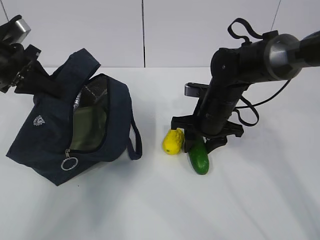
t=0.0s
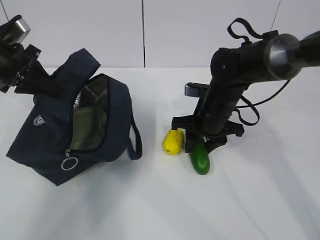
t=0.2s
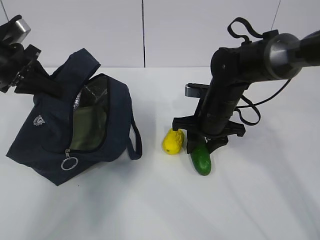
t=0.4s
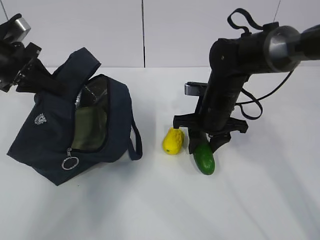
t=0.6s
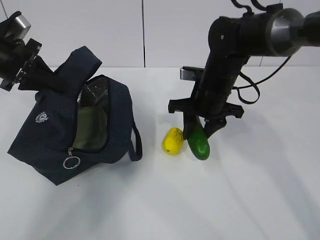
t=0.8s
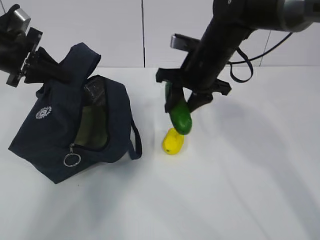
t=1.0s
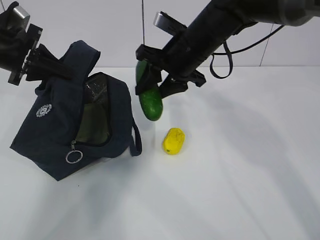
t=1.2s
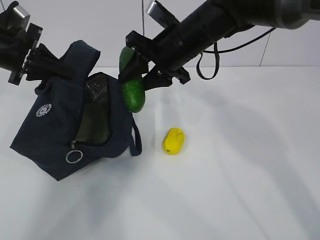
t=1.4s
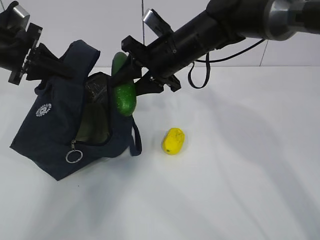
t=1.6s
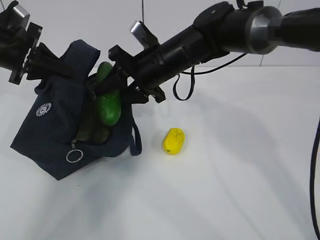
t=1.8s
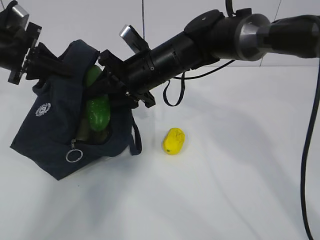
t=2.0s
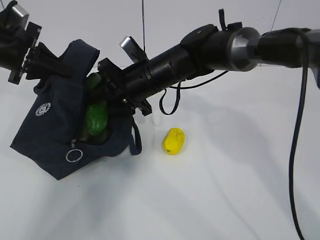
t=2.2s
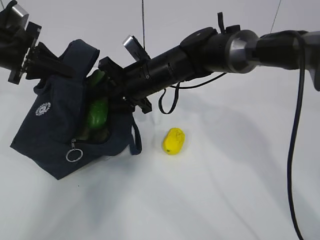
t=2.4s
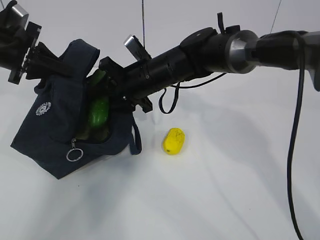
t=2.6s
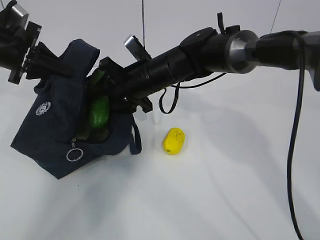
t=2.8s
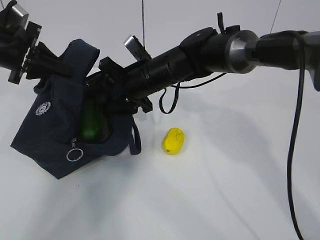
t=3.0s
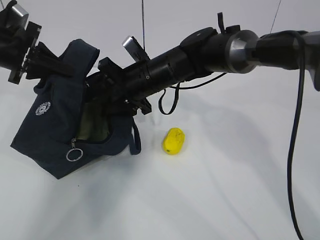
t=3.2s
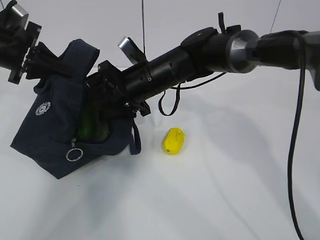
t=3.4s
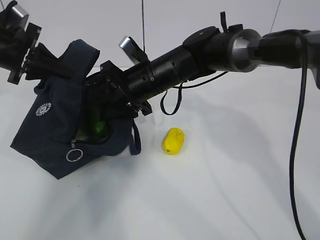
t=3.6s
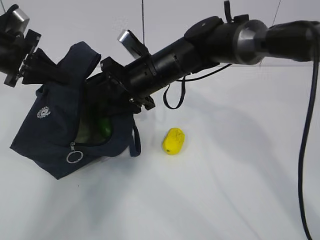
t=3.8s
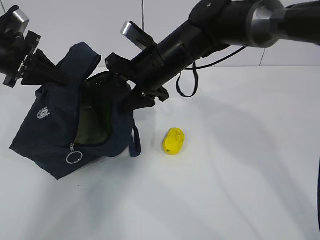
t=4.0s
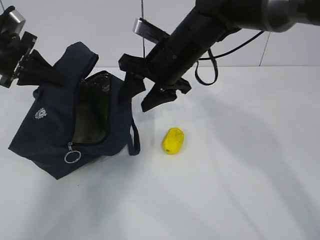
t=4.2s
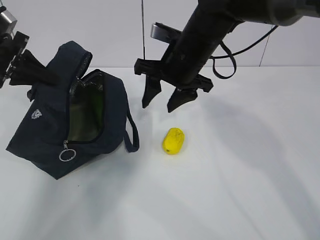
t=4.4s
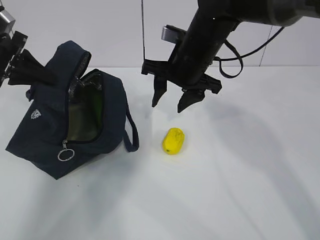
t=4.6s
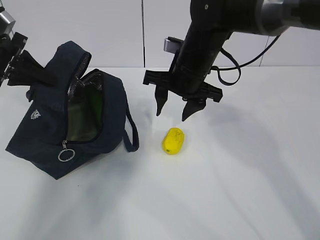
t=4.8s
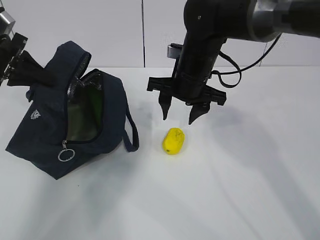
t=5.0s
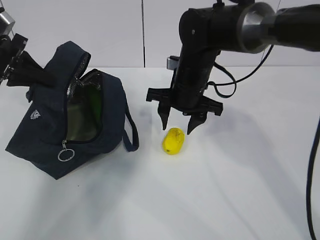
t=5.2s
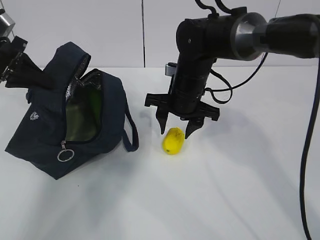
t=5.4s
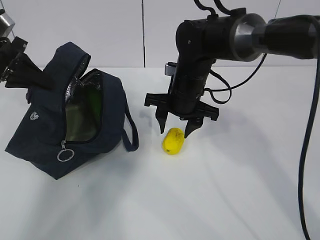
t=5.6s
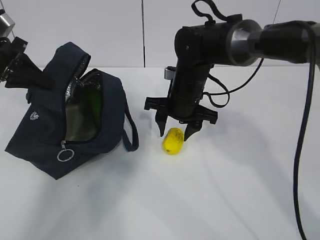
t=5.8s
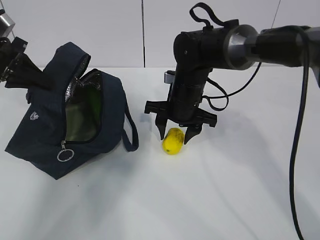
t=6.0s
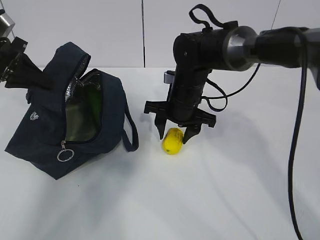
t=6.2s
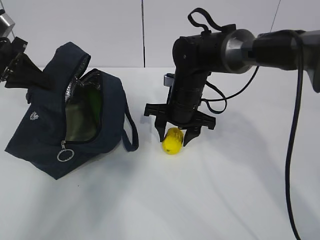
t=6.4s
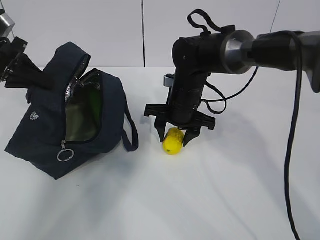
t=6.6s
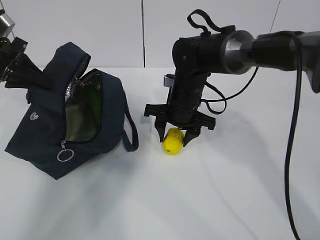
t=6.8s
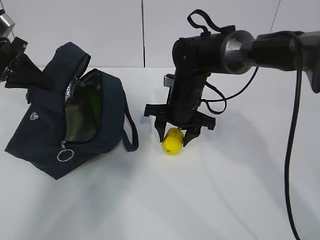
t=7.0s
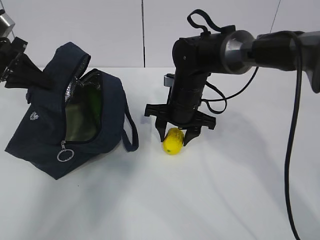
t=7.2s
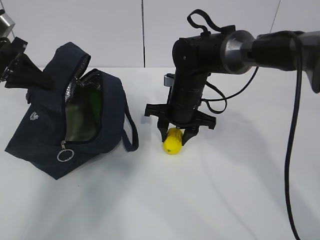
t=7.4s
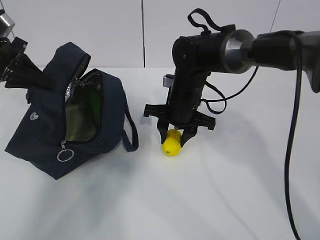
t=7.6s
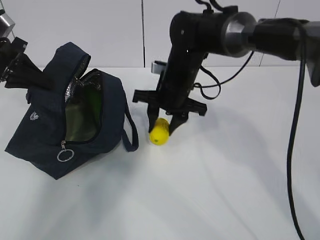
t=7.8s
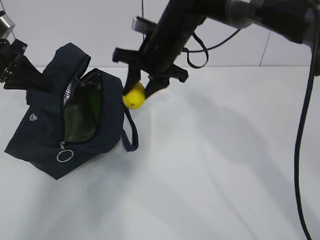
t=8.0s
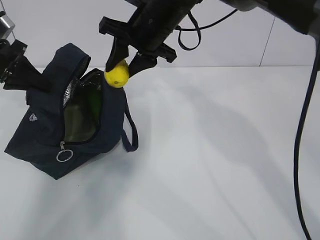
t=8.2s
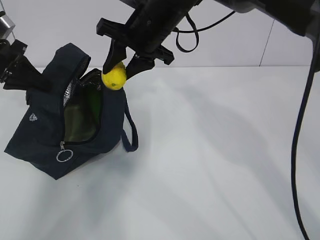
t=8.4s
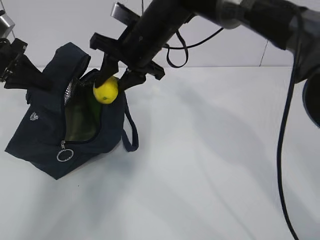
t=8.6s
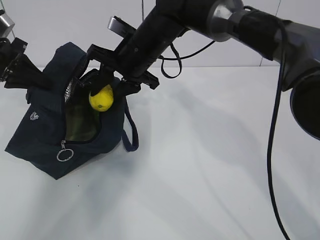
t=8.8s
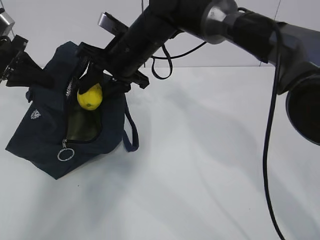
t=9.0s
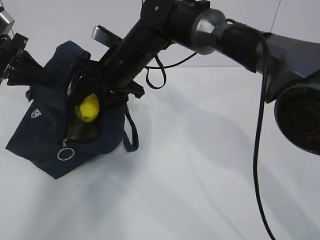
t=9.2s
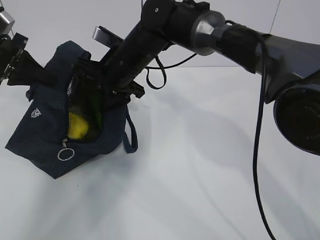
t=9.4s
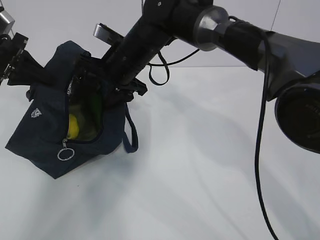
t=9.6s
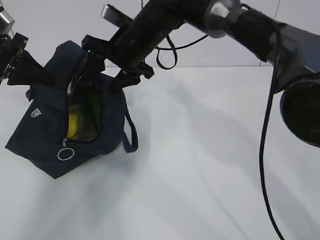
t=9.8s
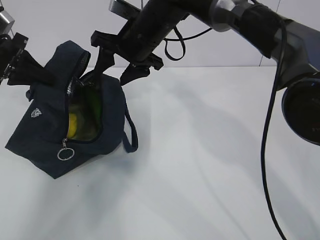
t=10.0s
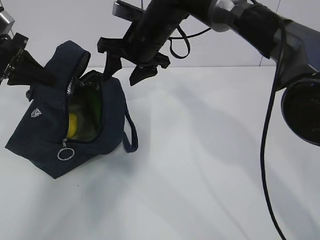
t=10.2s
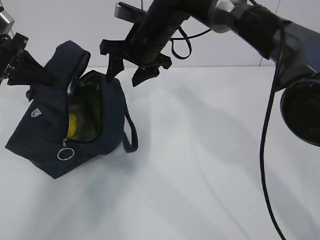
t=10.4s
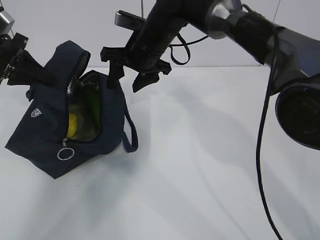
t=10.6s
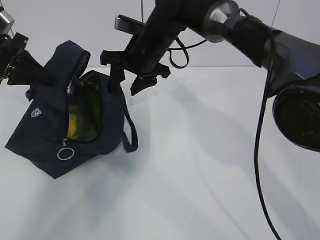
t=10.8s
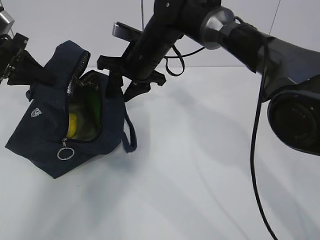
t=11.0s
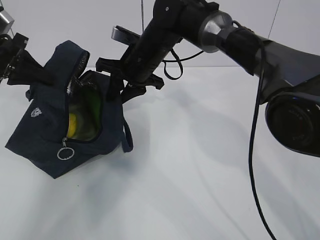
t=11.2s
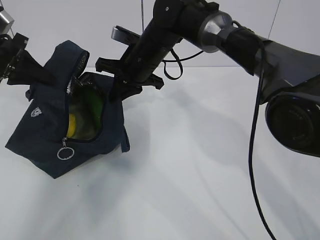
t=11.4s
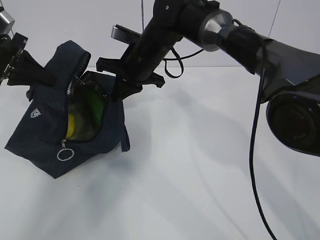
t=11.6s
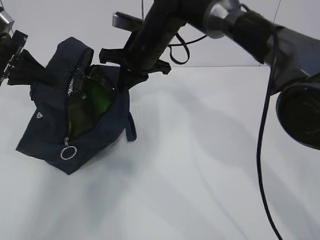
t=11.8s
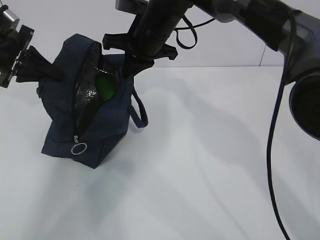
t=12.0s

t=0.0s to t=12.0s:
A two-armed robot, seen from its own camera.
Step, t=0.0s to t=2.2s: Grab the lemon with your right hand.
Step, t=4.2s to t=5.6s: Grab the lunch bag with your right hand.
Step, t=5.8s to t=10.0s: Move the lunch bag to the right.
t=0.0s to t=1.6s: The right gripper moves upward and to the left, approximately 15 cm.
t=1.6s to t=3.0s: The right gripper heads downward, covering roughly 5 cm.
t=3.0s to t=4.4s: The right gripper shifts about 10 cm upward and to the right.
t=4.4s to t=6.0s: The right gripper travels downward by approximately 10 cm.
t=6.0s to t=7.6s: Both grippers stay about where they are.
t=7.6s to t=9.0s: The right gripper travels upward and to the left by about 15 cm.
t=9.0s to t=10.4s: The grippers make only small movements.
t=10.4s to t=12.0s: The right gripper closes its fingers.

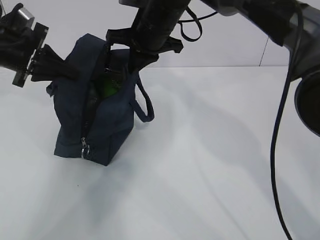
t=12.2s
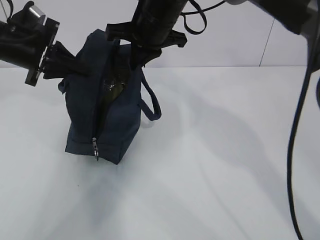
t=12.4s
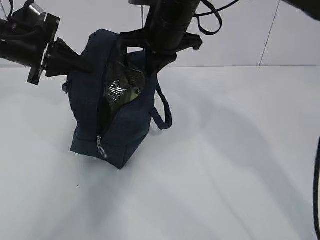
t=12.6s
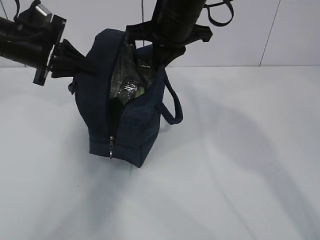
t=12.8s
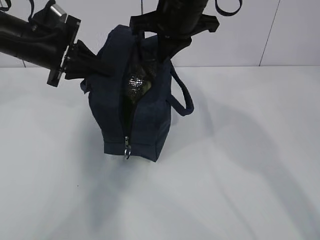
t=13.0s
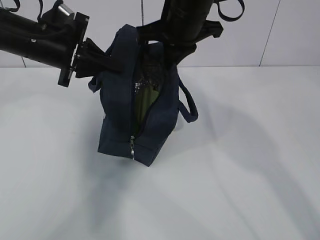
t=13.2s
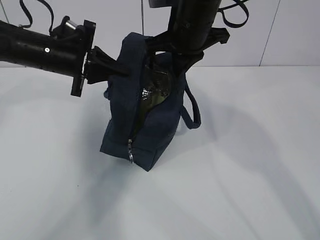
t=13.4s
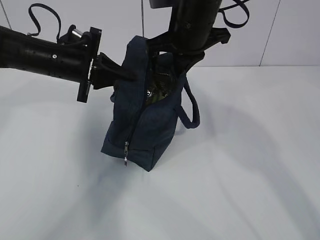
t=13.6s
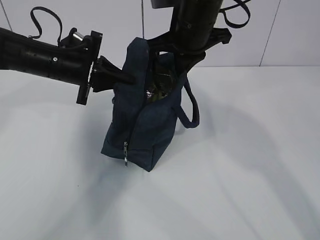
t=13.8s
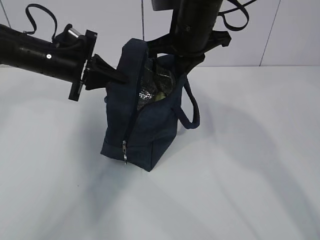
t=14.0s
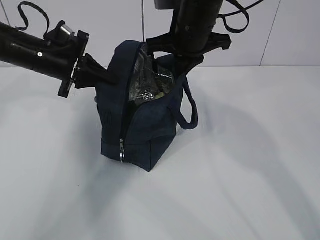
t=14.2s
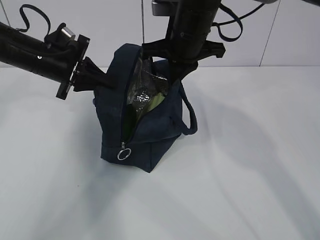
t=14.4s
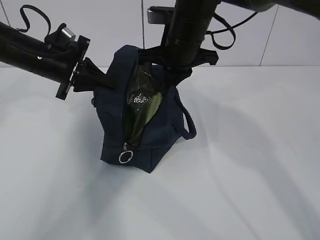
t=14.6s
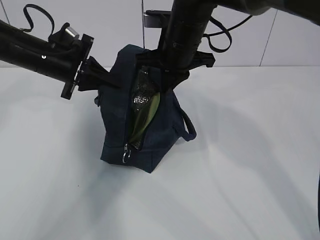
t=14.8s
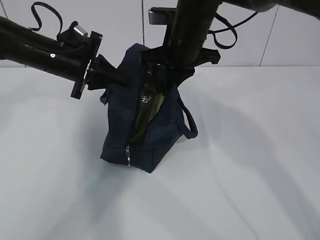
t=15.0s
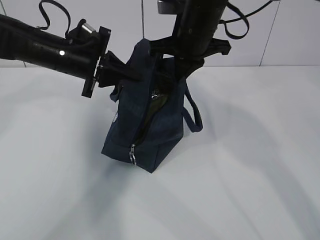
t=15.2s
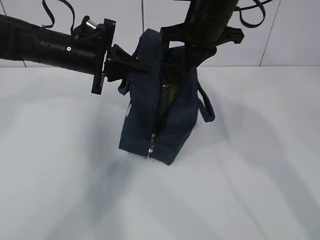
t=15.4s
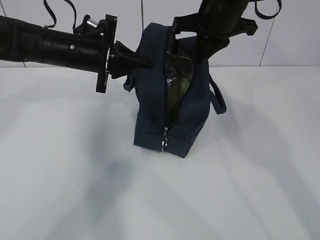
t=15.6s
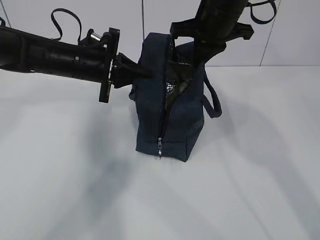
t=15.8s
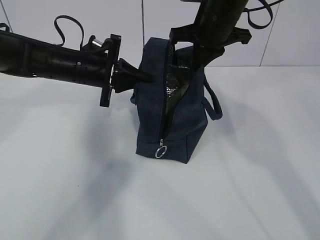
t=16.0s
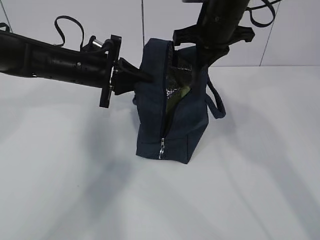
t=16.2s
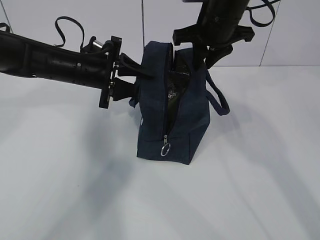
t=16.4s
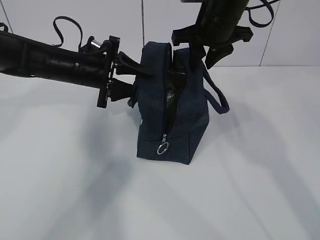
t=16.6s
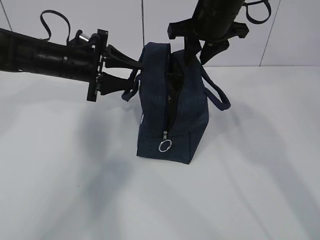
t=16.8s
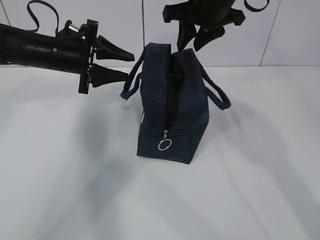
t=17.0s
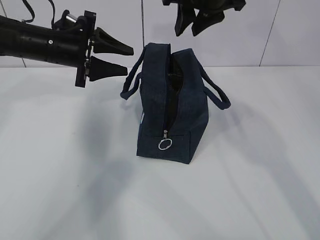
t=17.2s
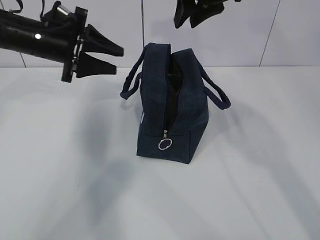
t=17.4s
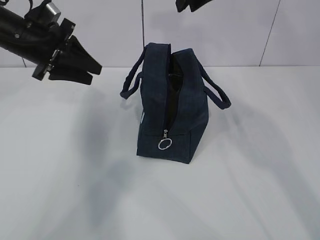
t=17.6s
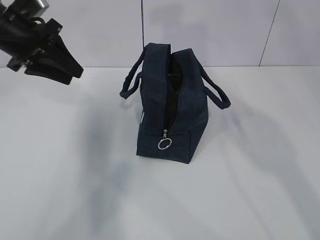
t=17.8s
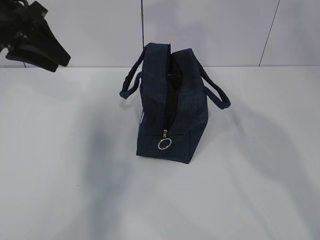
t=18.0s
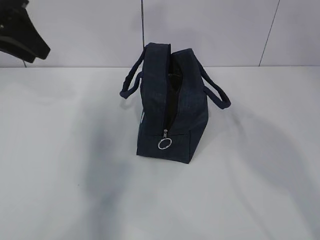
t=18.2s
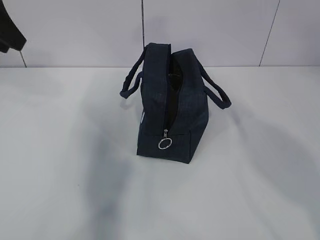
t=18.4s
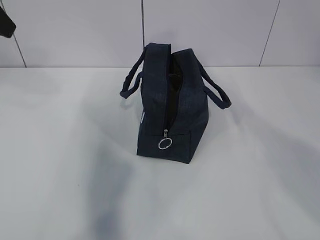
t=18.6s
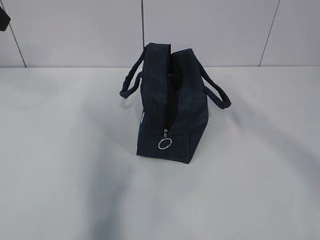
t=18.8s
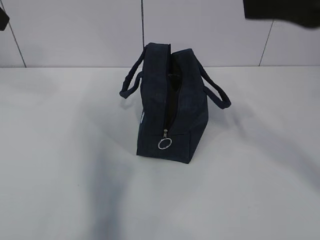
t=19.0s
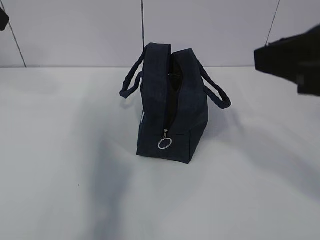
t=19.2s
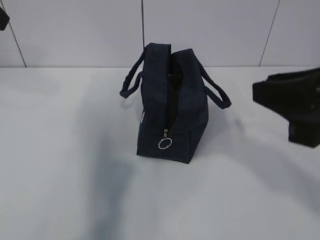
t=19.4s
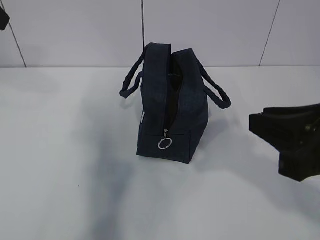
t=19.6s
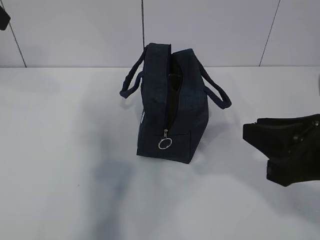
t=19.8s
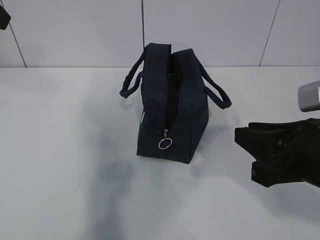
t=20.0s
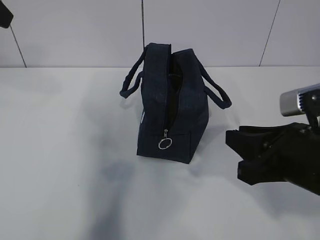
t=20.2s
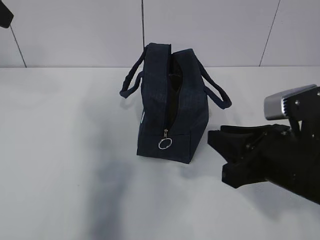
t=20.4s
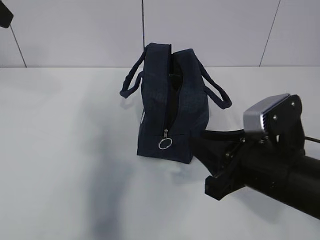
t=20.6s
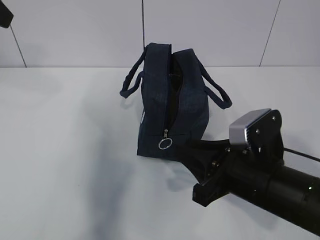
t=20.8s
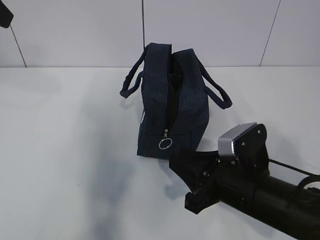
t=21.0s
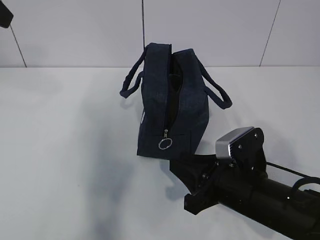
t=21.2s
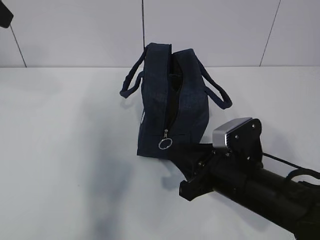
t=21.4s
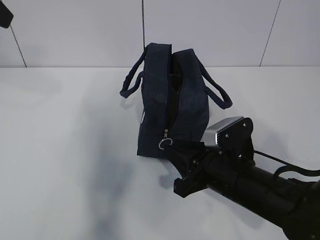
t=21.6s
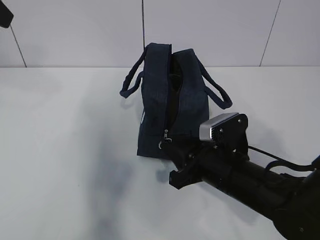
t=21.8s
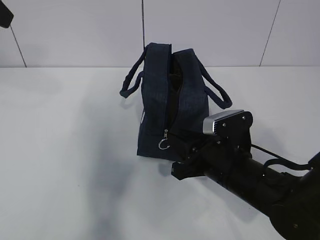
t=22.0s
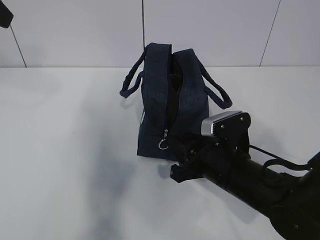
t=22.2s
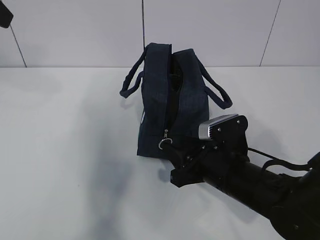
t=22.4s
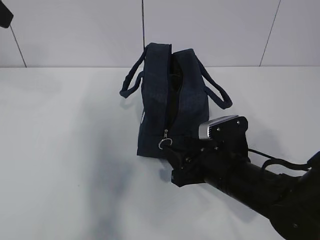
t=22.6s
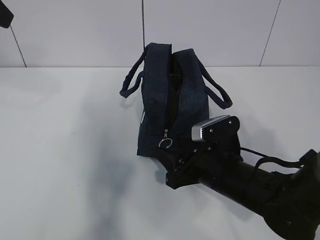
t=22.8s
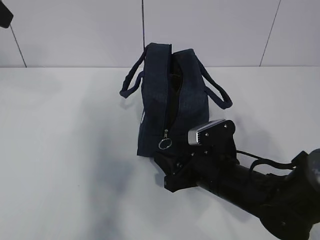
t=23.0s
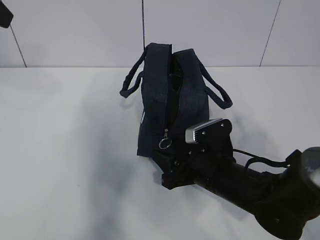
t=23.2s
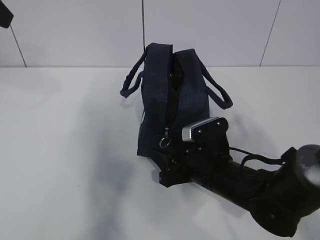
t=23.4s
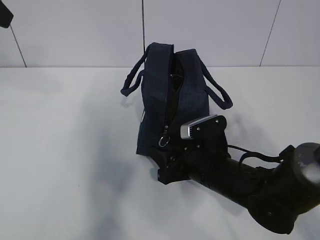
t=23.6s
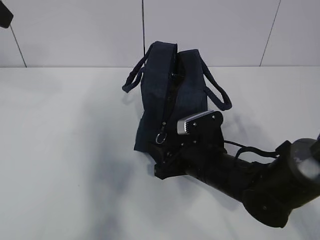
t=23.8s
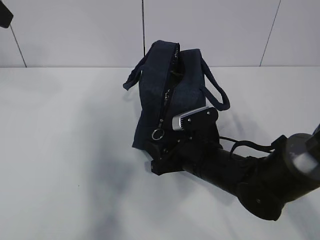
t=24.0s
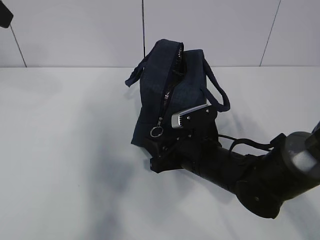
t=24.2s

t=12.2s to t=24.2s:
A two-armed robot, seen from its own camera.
t=12.2s to t=13.8s: The right gripper travels to the right by approximately 5 cm. The left gripper shifts about 10 cm to the right.
t=13.8s to t=15.2s: The grippers stay close to where they were, moving slightly.
t=15.2s to t=16.6s: The right gripper opens up. Meanwhile the left gripper opens.
t=16.6s to t=18.2s: The left gripper heads upward, to the left and backward, covering some 20 cm. Meanwhile the right gripper travels upward and backward by roughly 20 cm.
t=18.2s to t=19.8s: The right gripper moves downward, backward and to the right, some 30 cm. The left gripper goes about 10 cm upward and backward.
t=19.8s to t=21.2s: The right gripper goes roughly 15 cm downward, forward and to the left.
t=21.2s to t=22.6s: The right gripper opens.
t=22.6s to t=24.2s: The right gripper changes place by about 5 cm.
